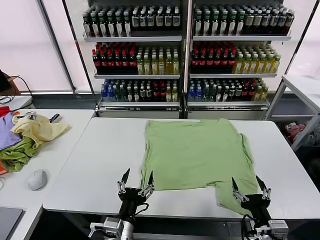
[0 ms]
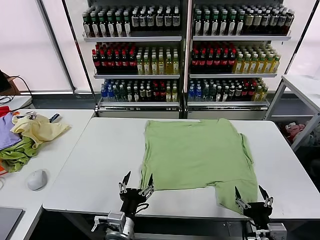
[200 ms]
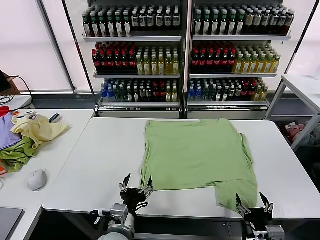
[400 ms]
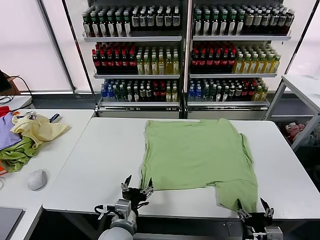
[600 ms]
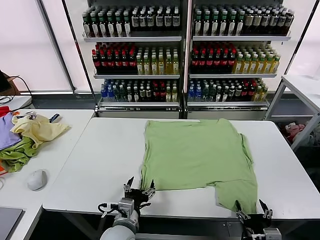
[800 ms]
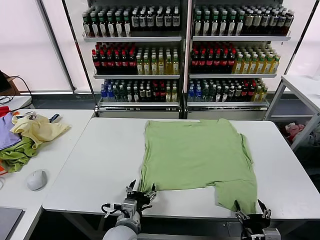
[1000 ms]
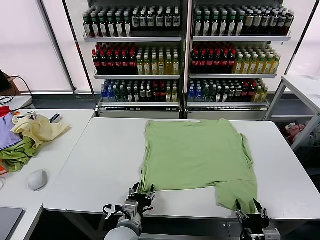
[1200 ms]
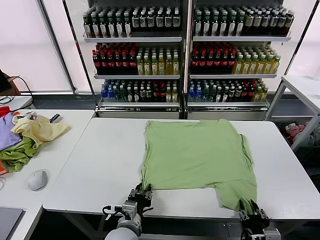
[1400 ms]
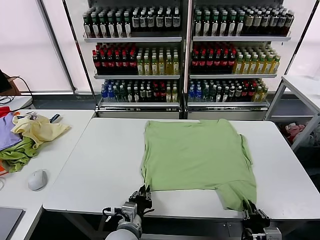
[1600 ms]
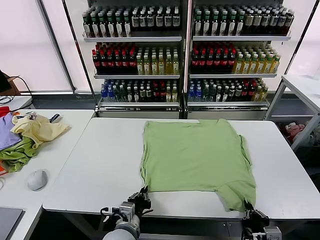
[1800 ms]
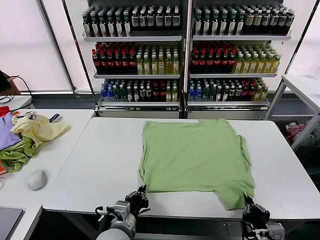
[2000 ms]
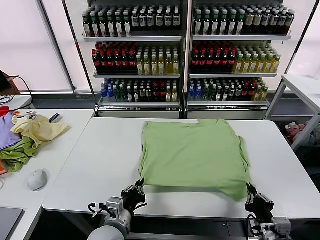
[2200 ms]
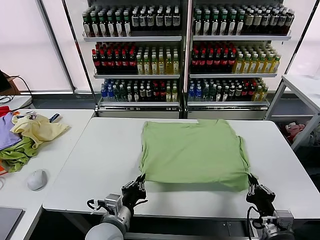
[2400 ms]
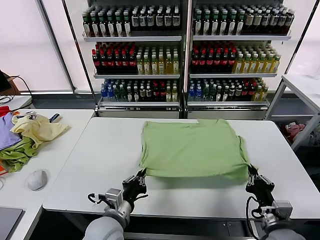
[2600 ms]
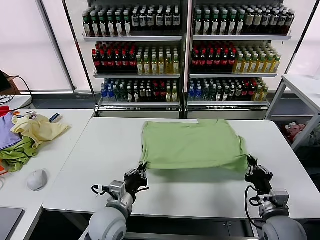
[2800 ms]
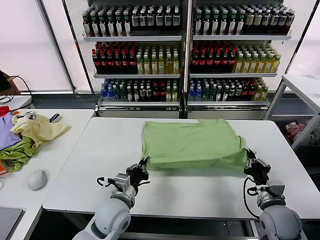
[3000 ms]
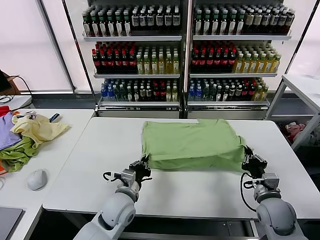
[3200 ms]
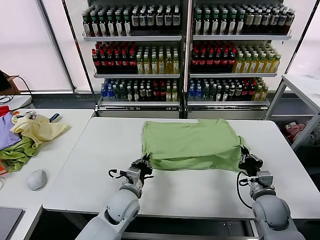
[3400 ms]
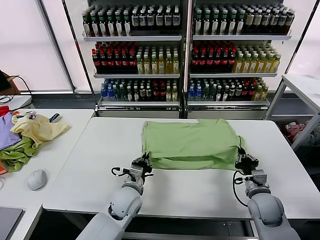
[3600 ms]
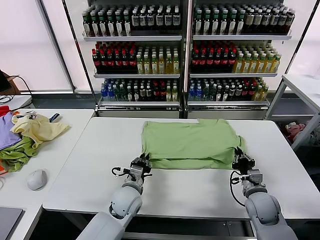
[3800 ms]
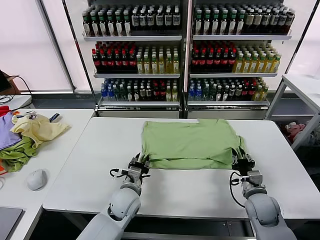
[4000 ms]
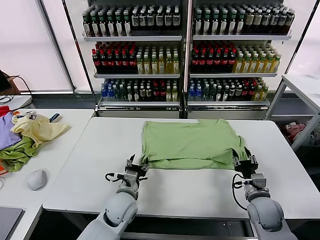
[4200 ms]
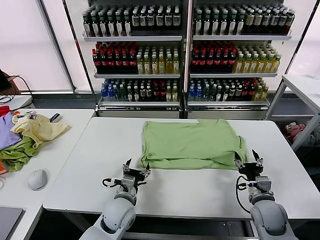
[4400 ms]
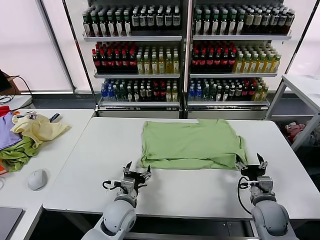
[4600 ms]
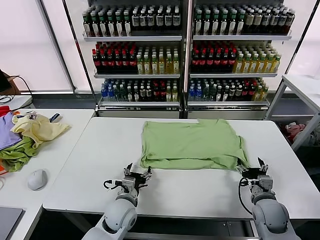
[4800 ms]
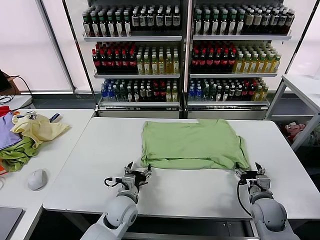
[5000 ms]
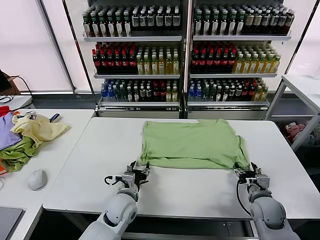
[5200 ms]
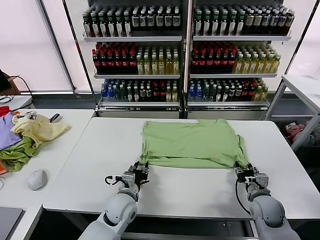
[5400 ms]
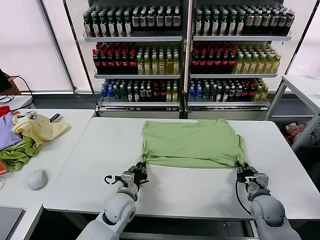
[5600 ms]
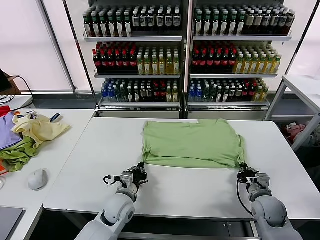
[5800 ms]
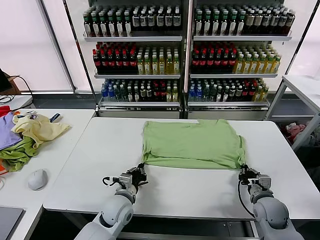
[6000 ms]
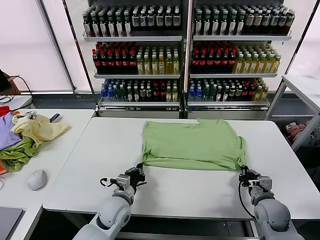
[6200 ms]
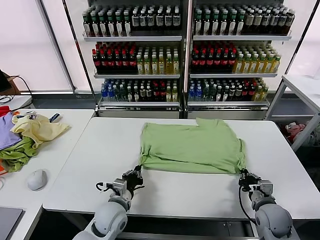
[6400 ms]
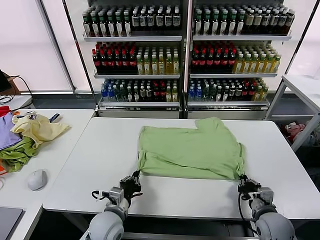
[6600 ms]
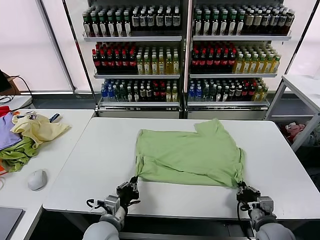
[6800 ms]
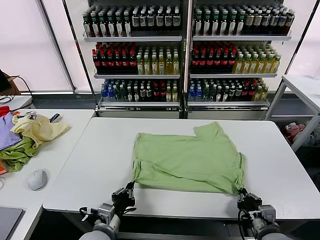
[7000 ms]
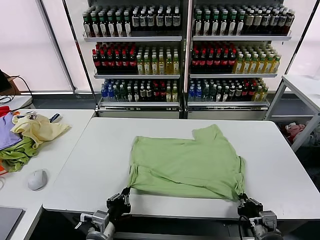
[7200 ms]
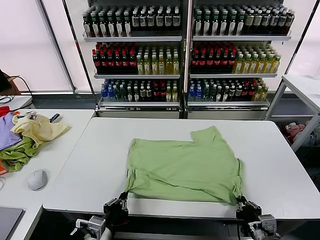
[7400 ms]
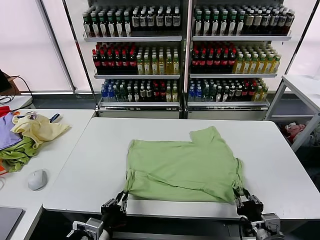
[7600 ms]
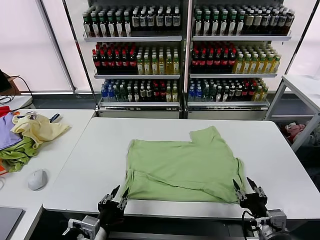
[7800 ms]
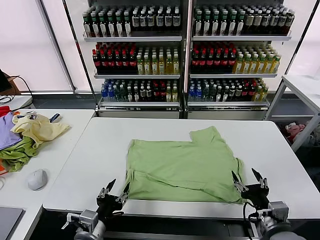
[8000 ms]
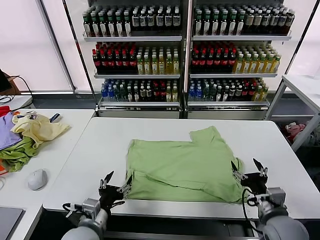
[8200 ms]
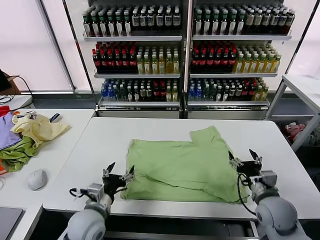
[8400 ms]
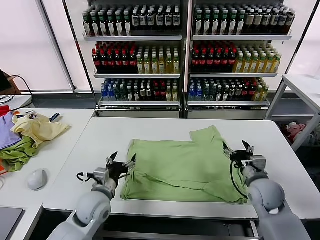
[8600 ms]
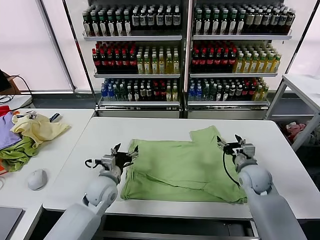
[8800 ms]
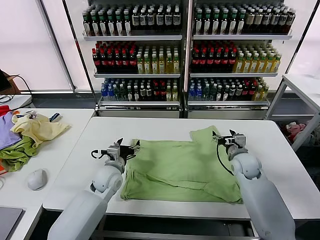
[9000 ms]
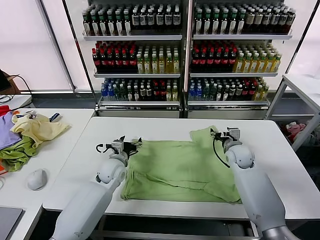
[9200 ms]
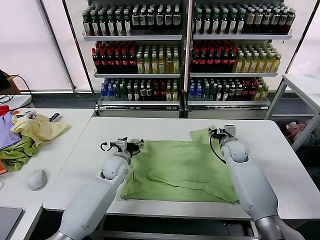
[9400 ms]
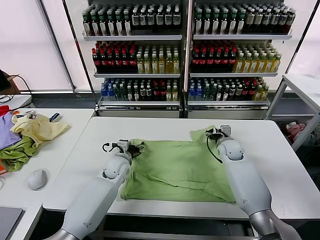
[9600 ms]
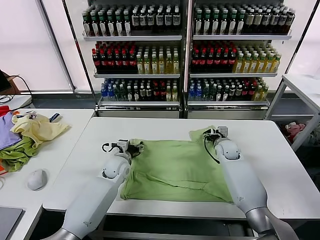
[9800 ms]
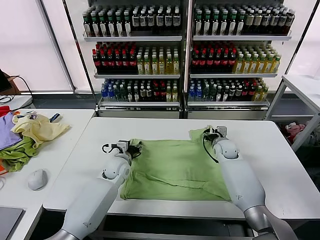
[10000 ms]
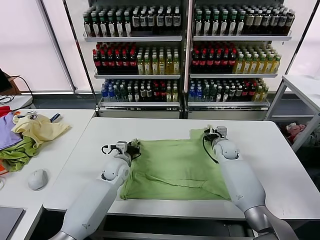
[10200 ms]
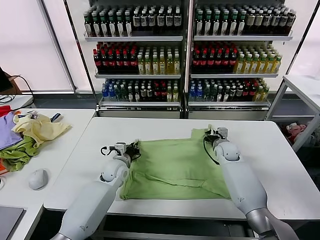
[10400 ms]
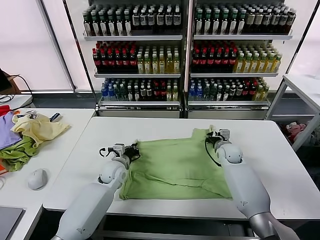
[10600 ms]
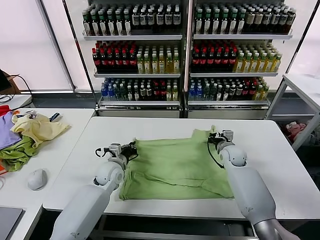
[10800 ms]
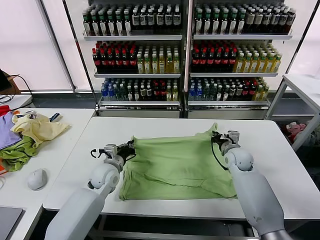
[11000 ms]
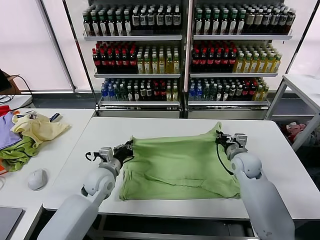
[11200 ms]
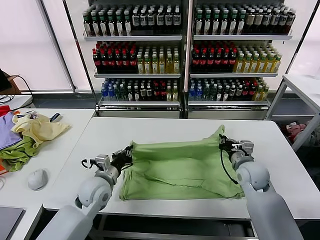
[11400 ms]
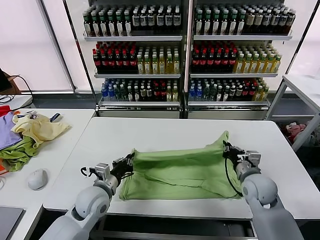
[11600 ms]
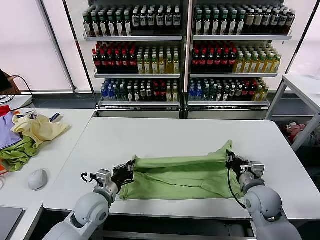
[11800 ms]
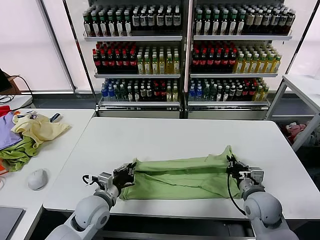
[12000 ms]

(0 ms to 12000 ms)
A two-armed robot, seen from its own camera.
Task of the whole recording: fold and organize the clothes.
Step, 0 ms - 1800 ms: use both grippers simultaneously to clamp the lower edge of the clothing fabric.
Step, 2000 ms - 4000 ms: use both grippers to drag the lower edge of the fabric forward and fold it over the upper edge.
Step, 4400 ms - 7600 ms: Drag the clothes downward with both gripper.
Step, 7800 ms - 10400 ms: use both grippers simultaneously to clamp the upper edge of the clothing fabric.
1600 ms - 3000 ms: The right gripper is displaced forward by approximately 15 cm; the left gripper is displaced forward by some 10 cm.
3000 ms - 4400 ms: The left gripper opens. Meanwhile the right gripper opens its fingers.
4400 ms - 6000 ms: The right gripper closes its fingers, while the left gripper closes its fingers.
6000 ms - 7600 ms: The left gripper goes about 15 cm backward. Meanwhile the right gripper heads backward and upward, covering about 15 cm, and opens its fingers.
7600 ms - 9000 ms: The grippers both shift forward by some 30 cm. The left gripper opens; the right gripper opens.
9000 ms - 10400 ms: The left gripper moves some 5 cm, and closes its fingers. The right gripper shifts about 5 cm forward, and closes its fingers.
10400 ms - 12000 ms: The grippers both shift backward by roughly 20 cm.

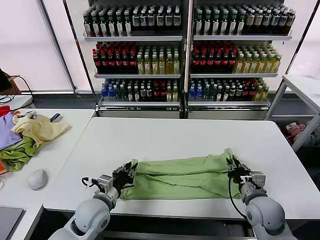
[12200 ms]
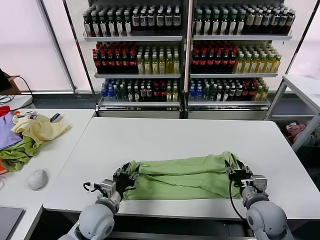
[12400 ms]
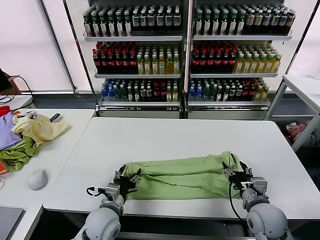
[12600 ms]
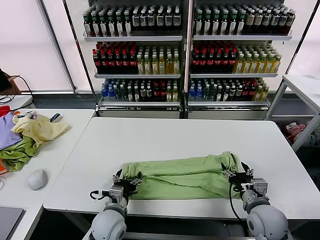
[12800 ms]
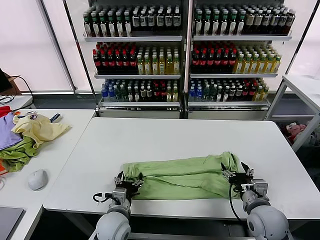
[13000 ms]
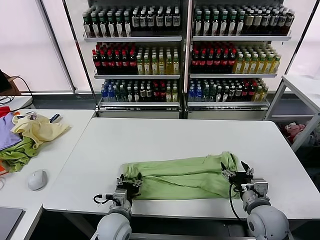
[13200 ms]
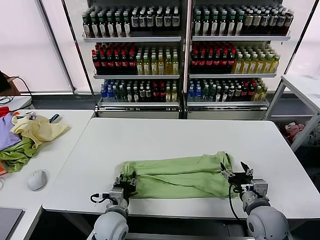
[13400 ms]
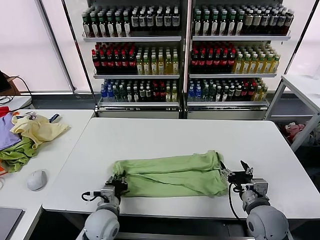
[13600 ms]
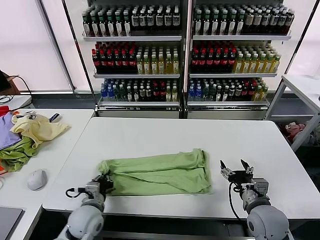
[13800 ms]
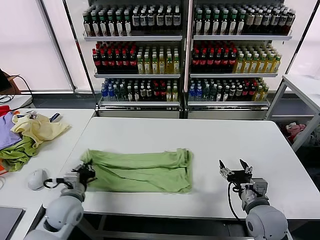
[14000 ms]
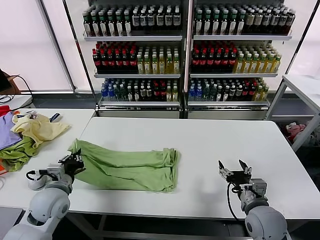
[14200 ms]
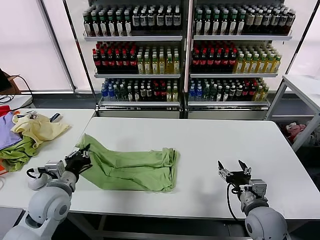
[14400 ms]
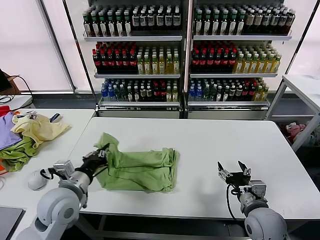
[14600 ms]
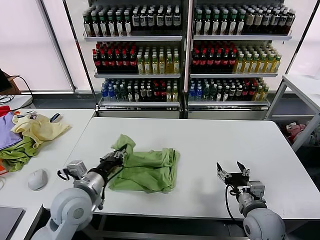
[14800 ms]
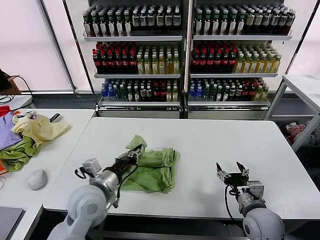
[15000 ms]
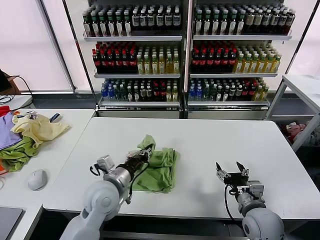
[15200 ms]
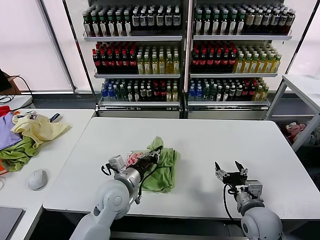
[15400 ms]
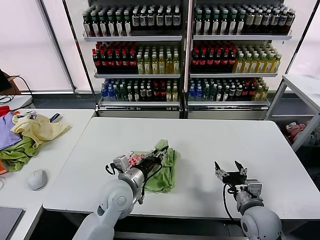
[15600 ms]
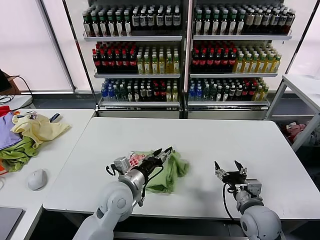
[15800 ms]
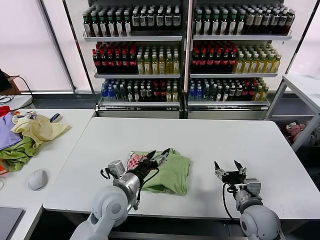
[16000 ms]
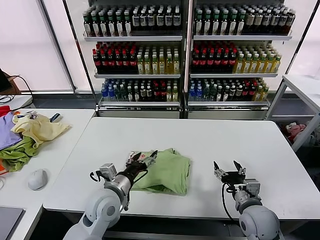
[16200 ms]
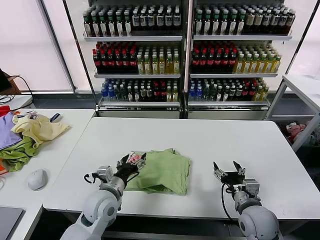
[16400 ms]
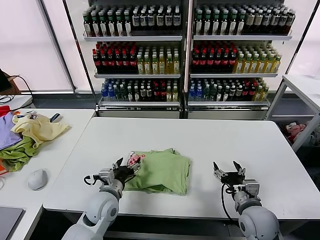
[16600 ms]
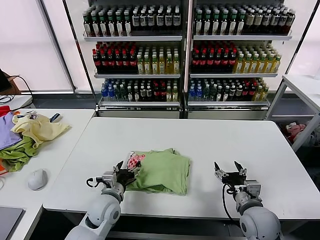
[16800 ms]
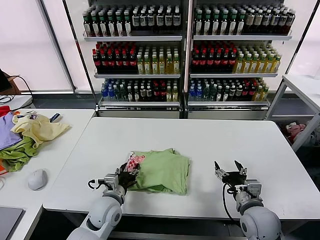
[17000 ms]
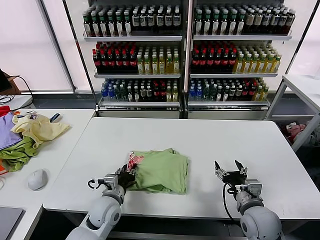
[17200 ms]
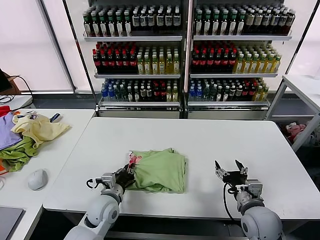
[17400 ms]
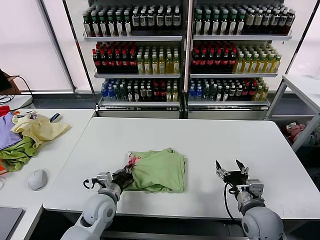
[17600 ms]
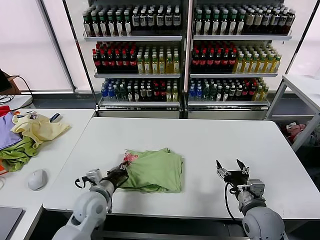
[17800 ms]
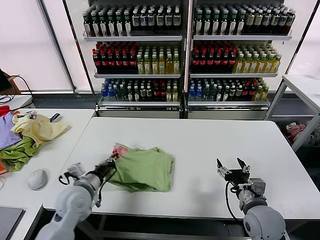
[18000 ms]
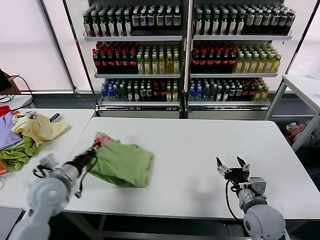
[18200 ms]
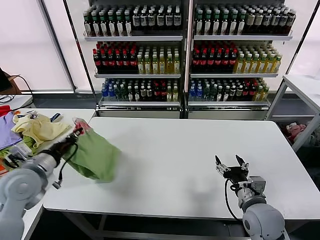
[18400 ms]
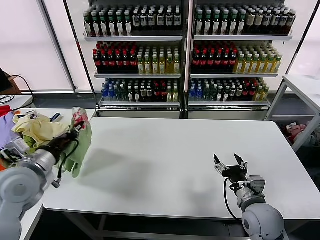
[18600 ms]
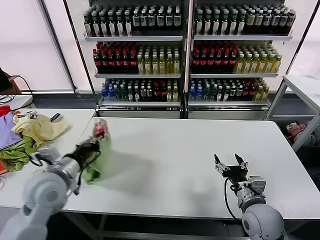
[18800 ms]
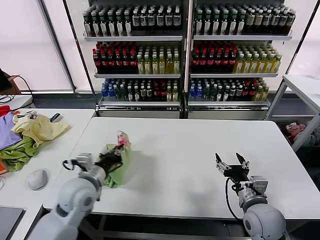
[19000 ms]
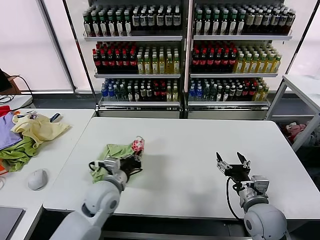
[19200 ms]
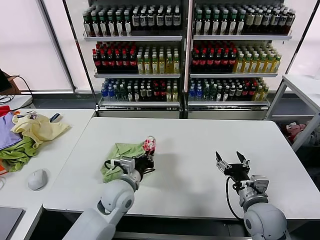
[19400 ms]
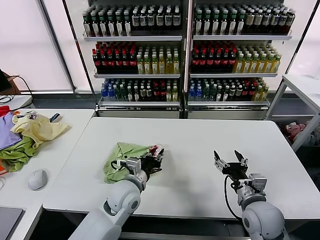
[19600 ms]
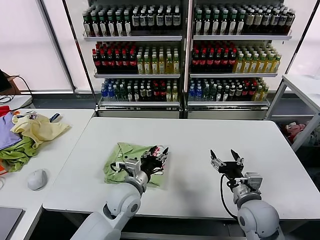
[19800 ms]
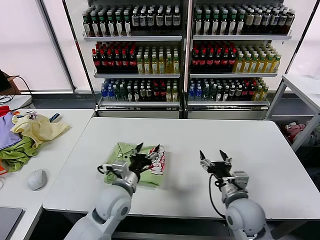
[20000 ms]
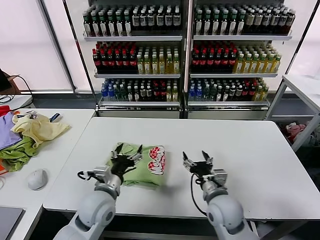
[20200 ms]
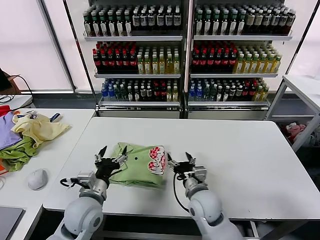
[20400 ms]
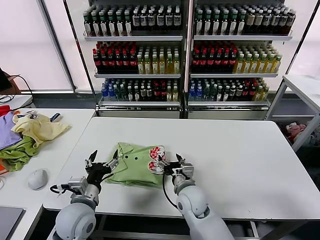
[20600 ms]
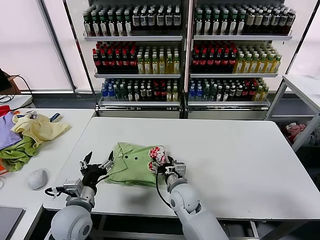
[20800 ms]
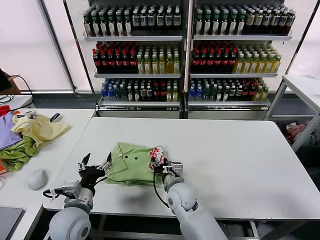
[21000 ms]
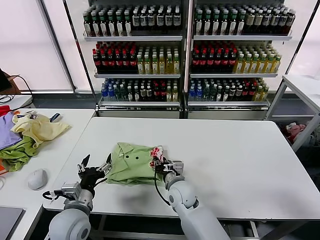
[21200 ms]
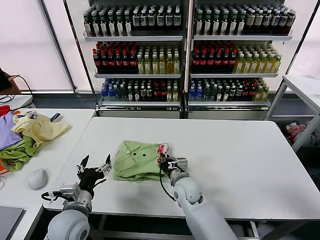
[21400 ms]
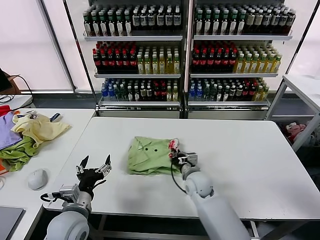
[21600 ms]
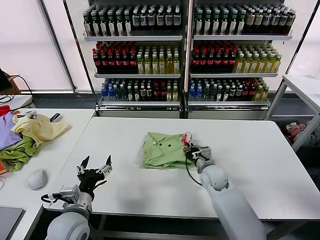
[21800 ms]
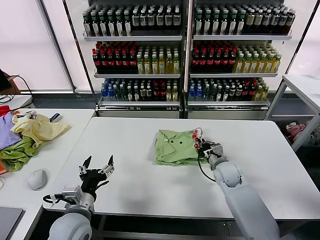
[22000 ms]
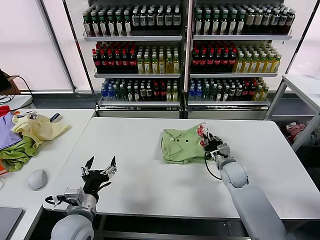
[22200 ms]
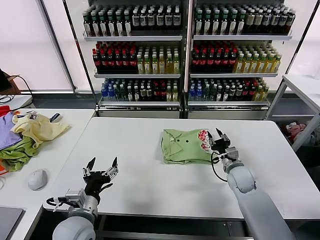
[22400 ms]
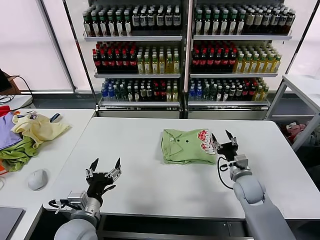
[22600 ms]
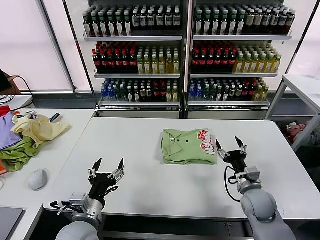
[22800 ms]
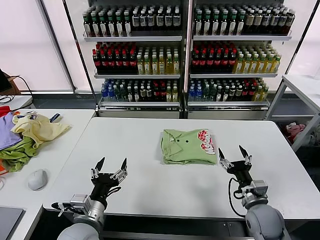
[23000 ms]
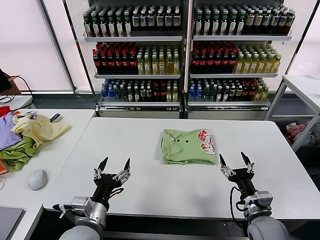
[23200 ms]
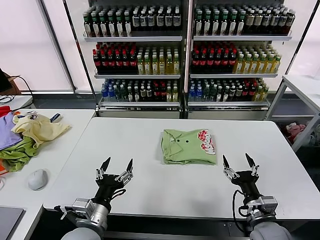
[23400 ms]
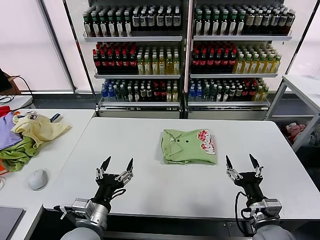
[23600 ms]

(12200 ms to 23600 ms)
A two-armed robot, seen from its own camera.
Task of the whole recording: fold and organize the clothes.
Step, 12600 ms - 13800 ms: use the left gripper to clamp the left edge of the fabric.
Step, 14000 ms - 15800 ms: use the left gripper to drag the left edge of the fabric to the left and folds it over the right edge.
Step, 16000 ms - 19600 ms: Flip the folded clothes over with left gripper.
Step, 19800 ms - 22400 ms: Drag the clothes to the center of the table.
12200 ms - 13600 ms: The right gripper opens up. Meanwhile the left gripper opens, then closes once more.
13600 ms - 15000 ms: The left gripper heads upward, covering roughly 15 cm, and reaches some 15 cm to the left, then returns.
15000 ms - 16400 ms: The left gripper moves downward, approximately 5 cm, and opens up.
16400 ms - 17800 ms: The left gripper closes.
17800 ms - 19400 ms: The left gripper heads to the right, covering about 10 cm.
19400 ms - 20800 ms: The right gripper moves to the left and forward, roughly 20 cm; the left gripper travels to the left and backward by roughly 15 cm, and opens up.
20800 ms - 22200 ms: The right gripper moves to the right and forward, roughly 20 cm, and closes.
22200 ms - 23600 ms: The left gripper ends up roughly 5 cm from where it was. The right gripper shifts some 25 cm backward, and opens its fingers.
